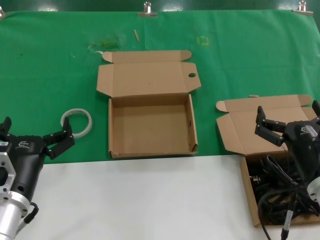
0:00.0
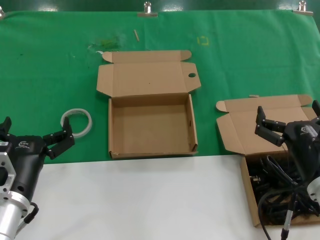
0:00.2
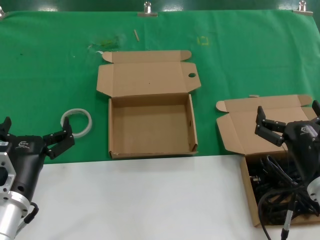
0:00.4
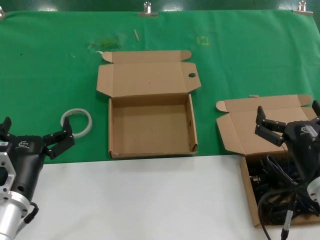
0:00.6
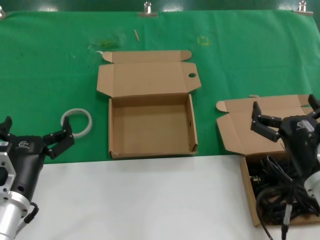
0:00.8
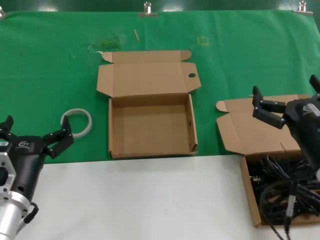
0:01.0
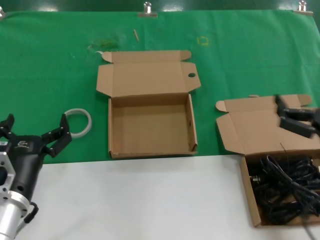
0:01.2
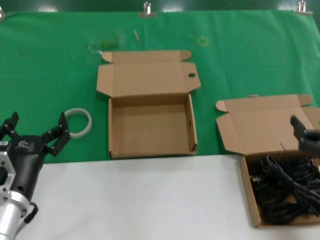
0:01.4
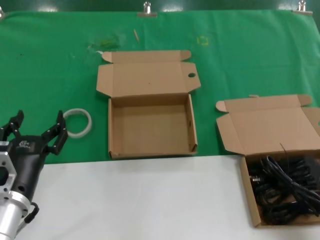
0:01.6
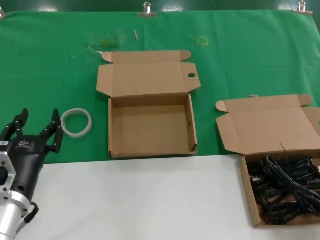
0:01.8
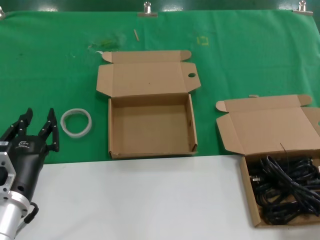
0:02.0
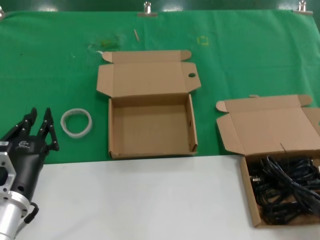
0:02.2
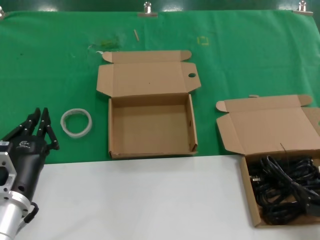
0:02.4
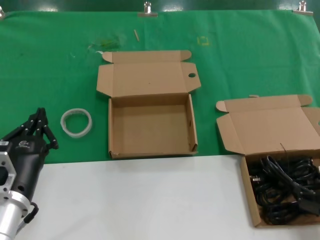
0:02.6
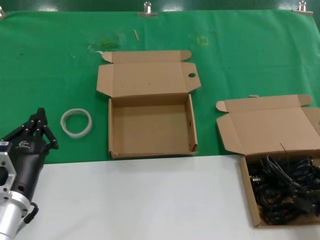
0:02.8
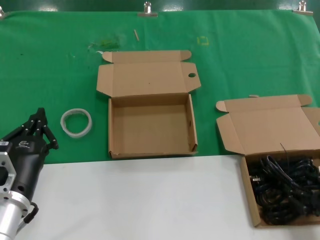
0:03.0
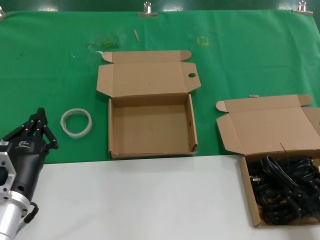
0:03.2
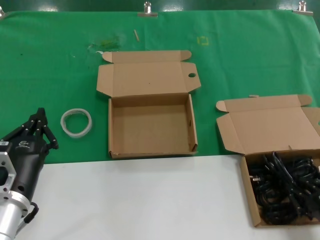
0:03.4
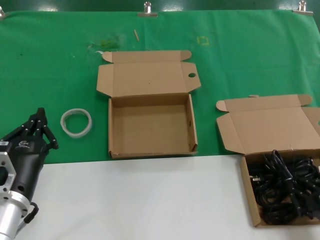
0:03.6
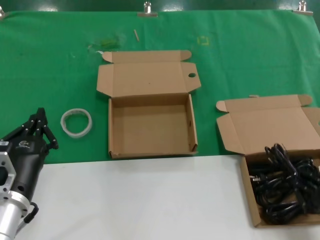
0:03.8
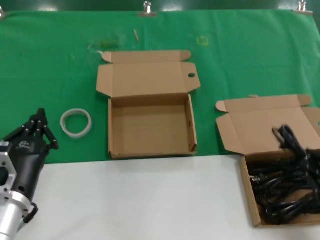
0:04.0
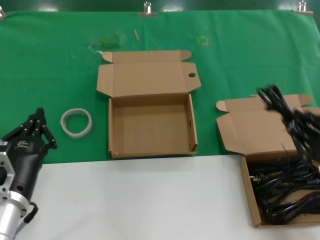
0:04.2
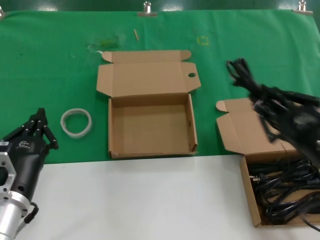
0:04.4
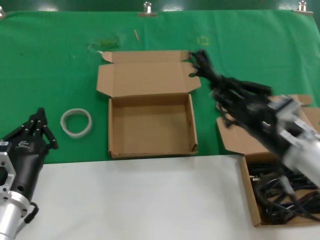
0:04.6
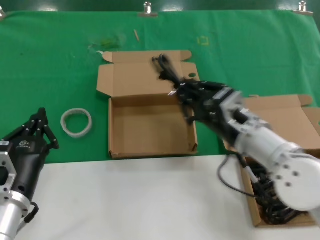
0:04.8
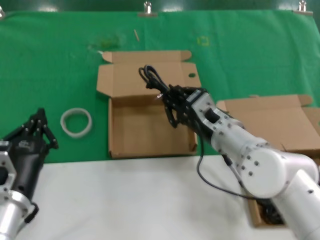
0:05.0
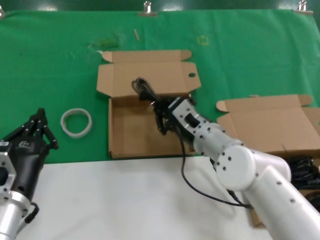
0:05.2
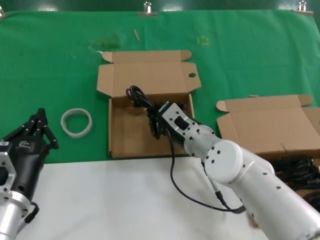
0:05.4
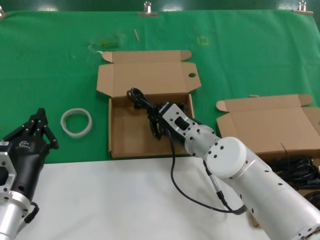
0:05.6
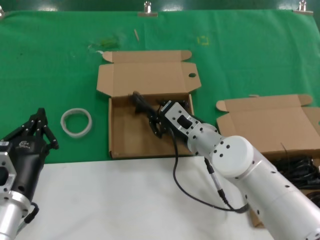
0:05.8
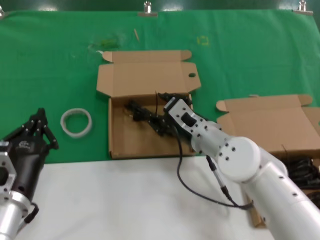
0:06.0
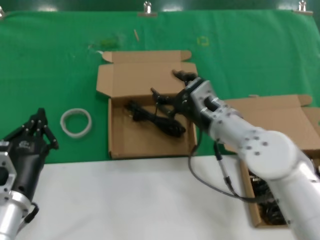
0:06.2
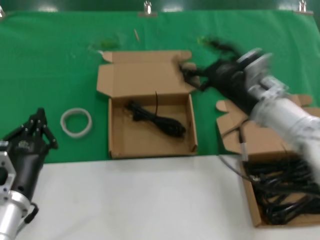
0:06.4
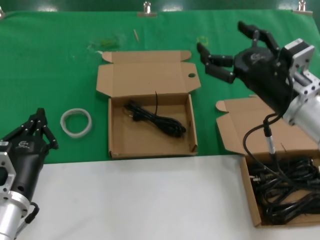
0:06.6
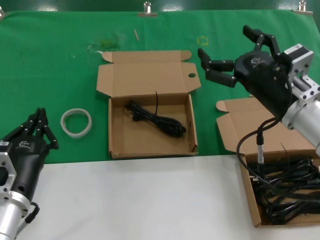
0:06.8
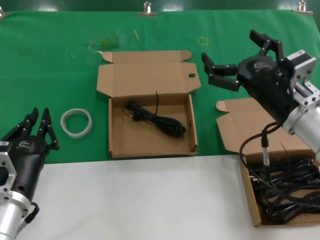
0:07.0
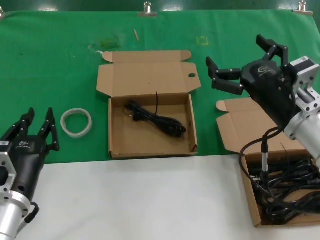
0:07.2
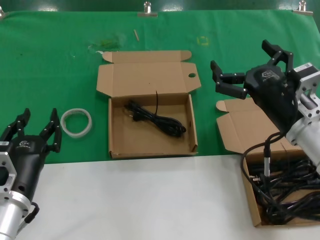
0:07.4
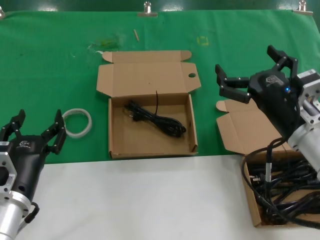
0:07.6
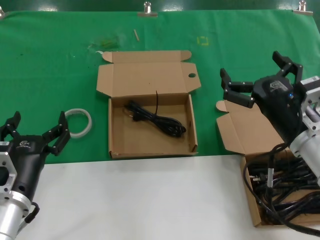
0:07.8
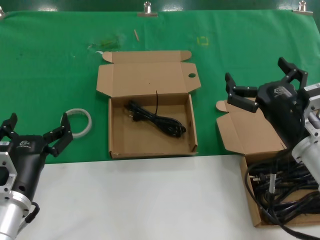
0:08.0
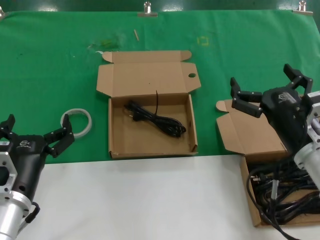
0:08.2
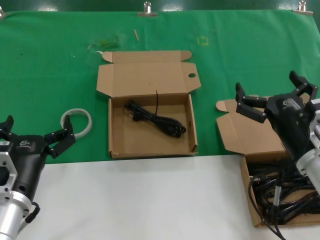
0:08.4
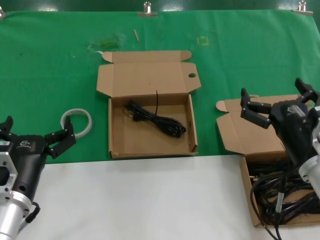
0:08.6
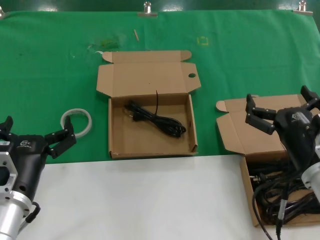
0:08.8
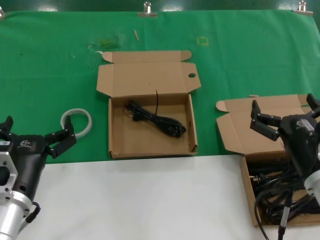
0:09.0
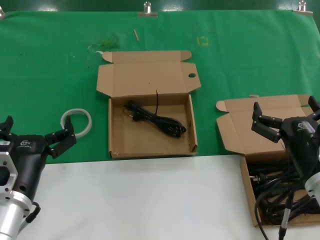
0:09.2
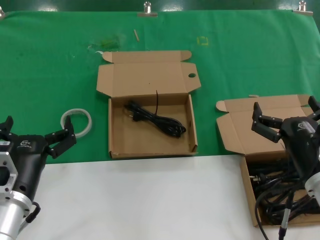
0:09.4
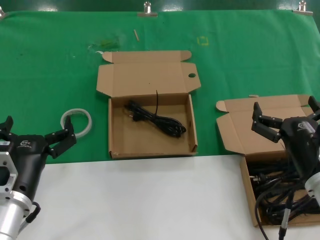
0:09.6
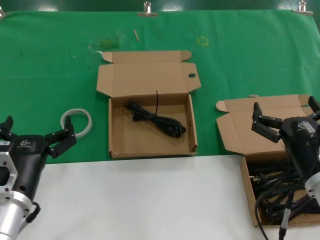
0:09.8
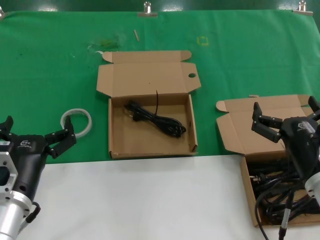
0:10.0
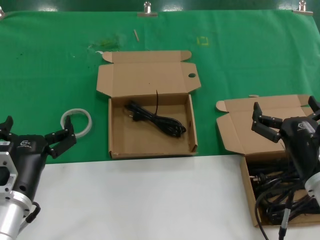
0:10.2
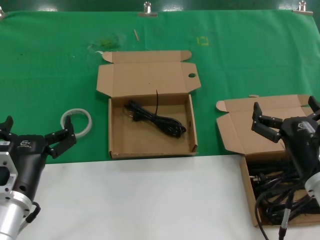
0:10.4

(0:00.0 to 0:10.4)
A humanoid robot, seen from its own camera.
Task of the whole recording: Pick up the power cord from the box containing it and place it in another box.
Step, 0:00.0 - 0:03.6: Grasp the data cable.
Step, 0:03.8 - 0:06.0: Place the data cable in the another box.
0:00.0 - 0:01.4: The right hand is displaced to the right, upward and backward by roughly 15 cm.
0:01.4 - 0:03.0: The right hand moves downward, roughly 10 cm.
0:03.0 - 0:04.4: The right hand is displaced upward and to the left by roughly 15 cm.
0:04.4 - 0:06.0: The right hand travels to the left and forward by about 30 cm.
0:06.0 - 0:07.4: The right hand goes approximately 20 cm to the right, backward and upward.
0:07.4 - 0:09.0: The right hand is displaced downward and backward by some 10 cm.
0:09.0 - 0:10.4: Both hands stay about where they are.
